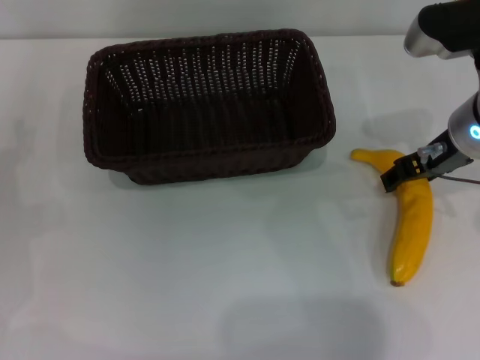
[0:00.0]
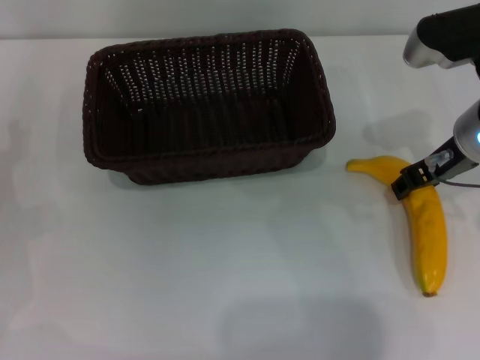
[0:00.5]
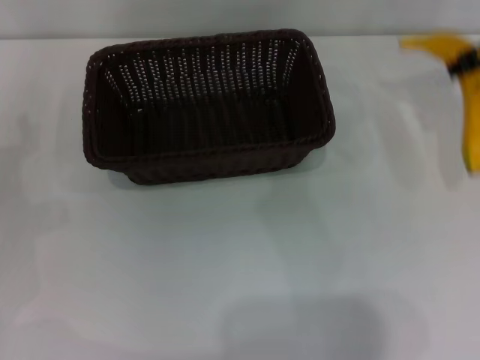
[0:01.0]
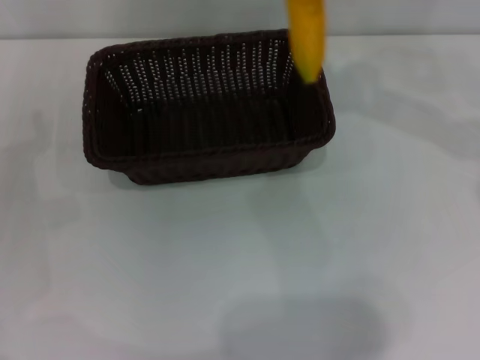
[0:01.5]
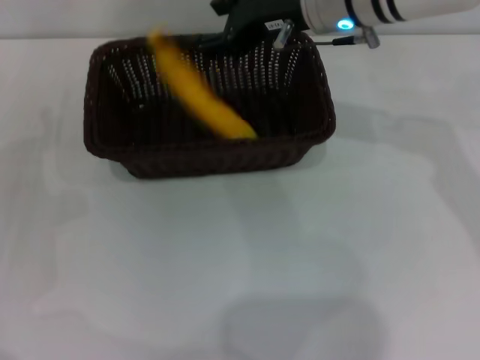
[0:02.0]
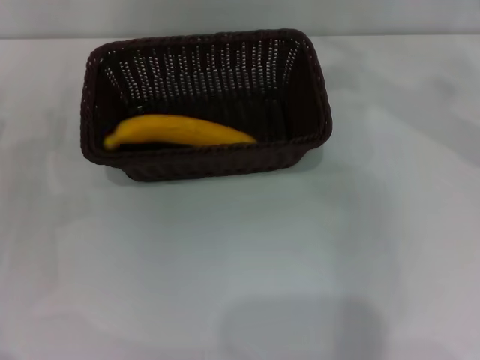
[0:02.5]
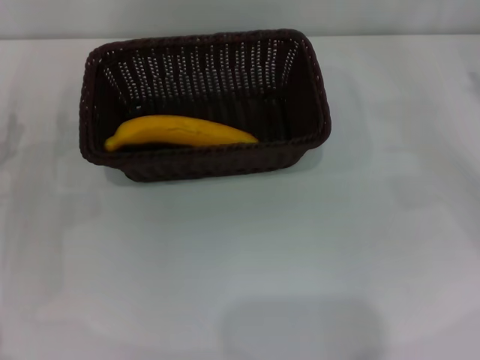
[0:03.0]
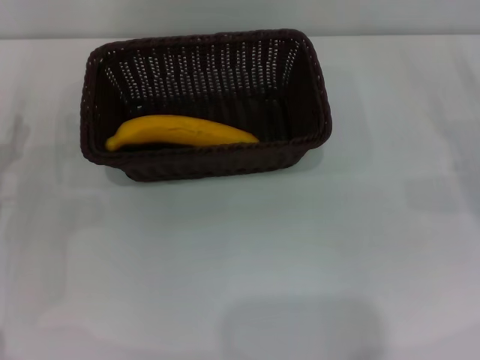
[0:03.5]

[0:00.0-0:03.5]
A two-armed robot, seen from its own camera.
Step, 0:01.0 to 0:02.0: Place the banana into the dark basket with the right gripper.
0:00.0 to 0:02.0: The right gripper goes roughly 15 cm to the left, forward and upward, and closes.
0:02.0 to 0:03.5: The right gripper moves to the right and downward, about 35 cm, and opens.
